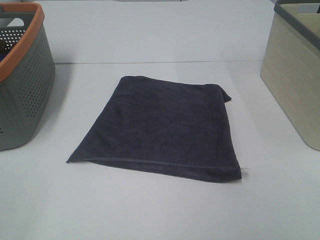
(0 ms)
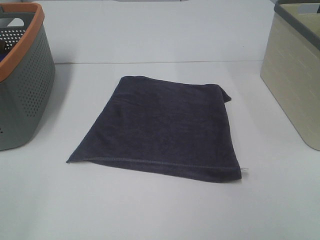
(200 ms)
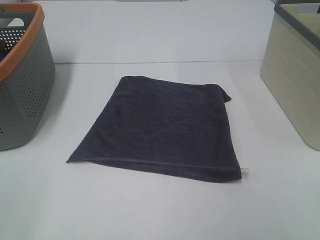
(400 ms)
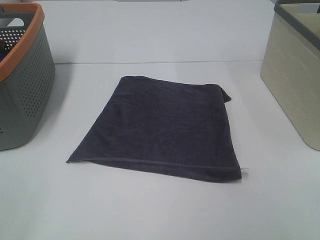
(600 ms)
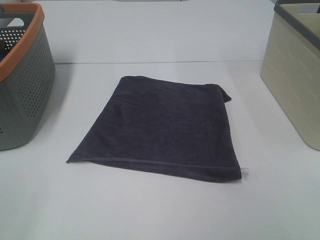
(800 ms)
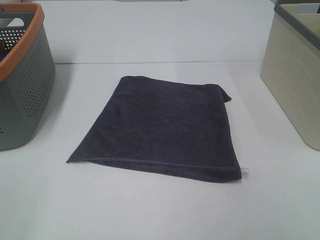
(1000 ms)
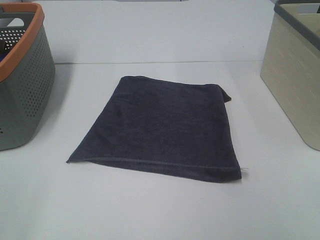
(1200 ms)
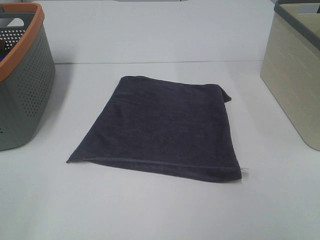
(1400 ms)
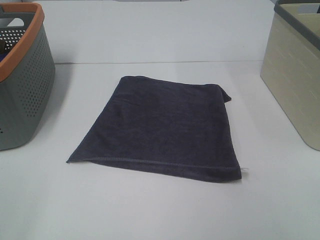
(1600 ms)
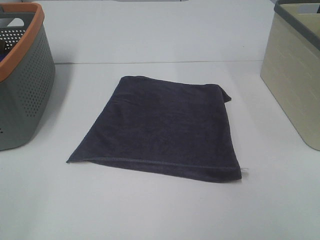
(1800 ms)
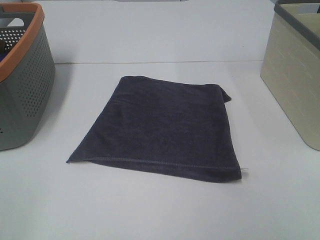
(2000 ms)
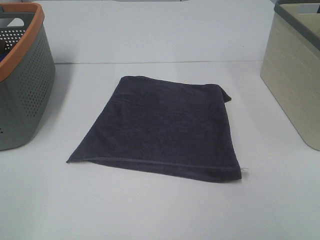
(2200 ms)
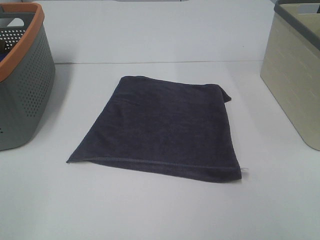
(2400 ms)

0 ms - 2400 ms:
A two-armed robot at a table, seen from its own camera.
Task of the whole recording: Remove the towel and place it.
0 ms - 1200 ms: Both grippers stay put.
